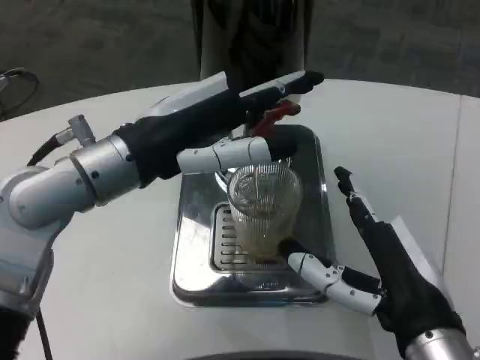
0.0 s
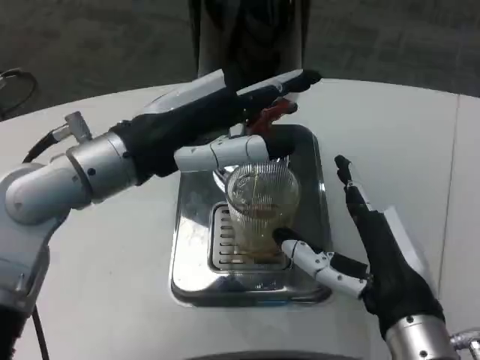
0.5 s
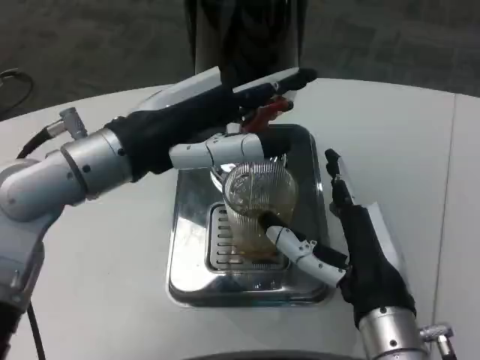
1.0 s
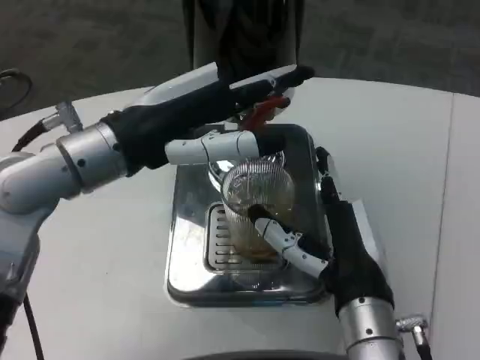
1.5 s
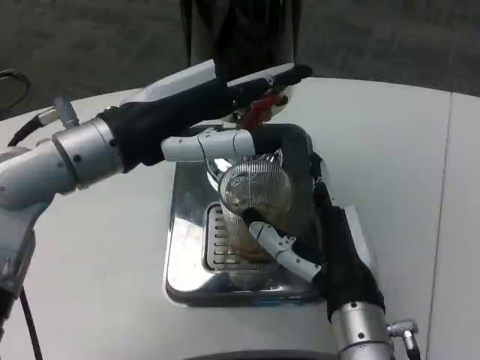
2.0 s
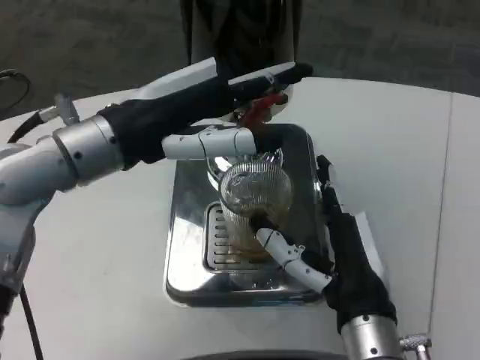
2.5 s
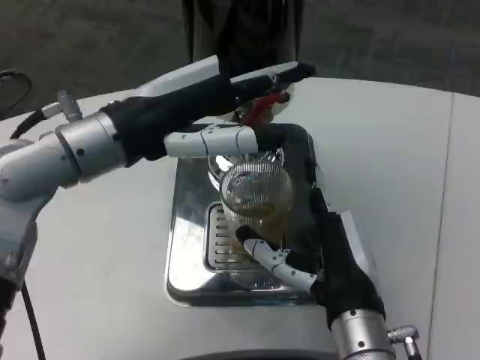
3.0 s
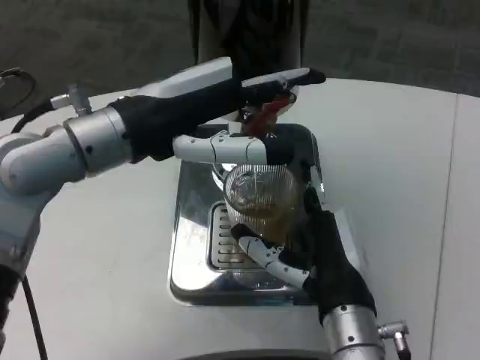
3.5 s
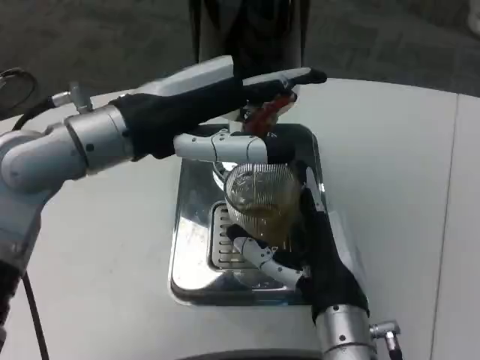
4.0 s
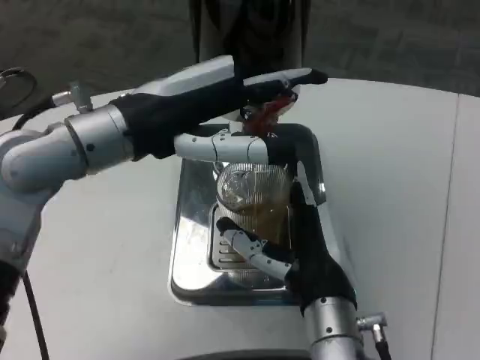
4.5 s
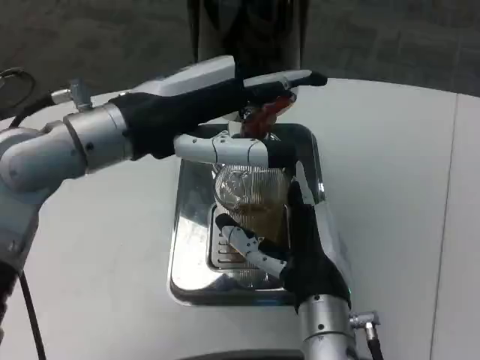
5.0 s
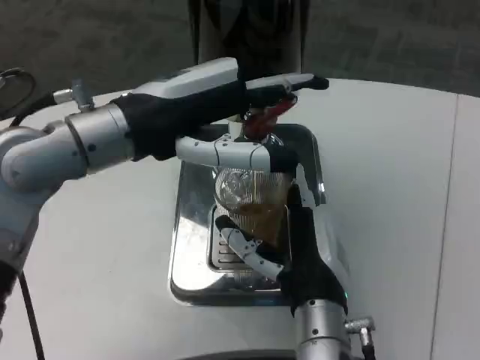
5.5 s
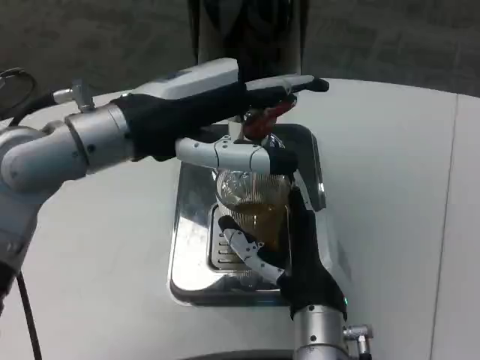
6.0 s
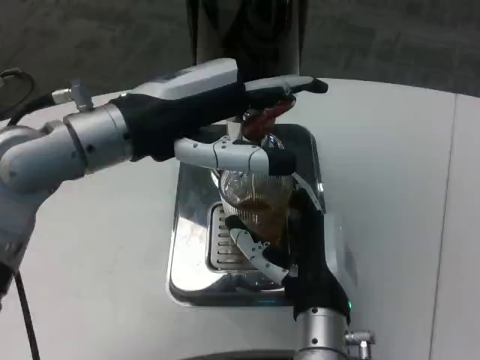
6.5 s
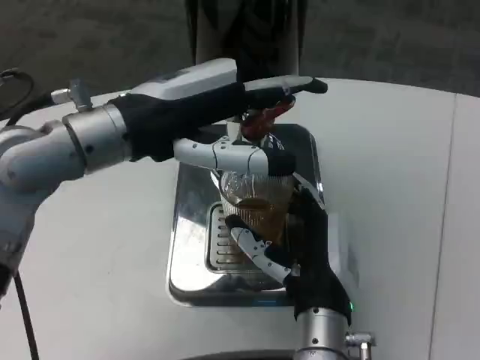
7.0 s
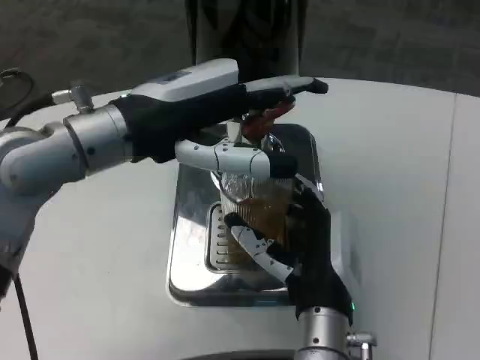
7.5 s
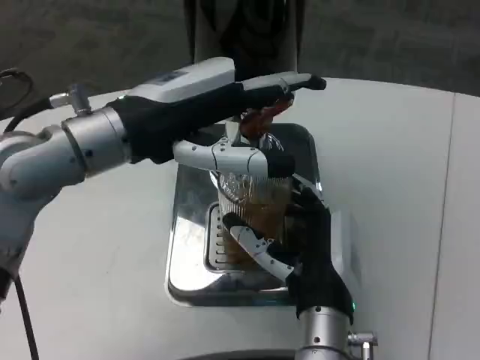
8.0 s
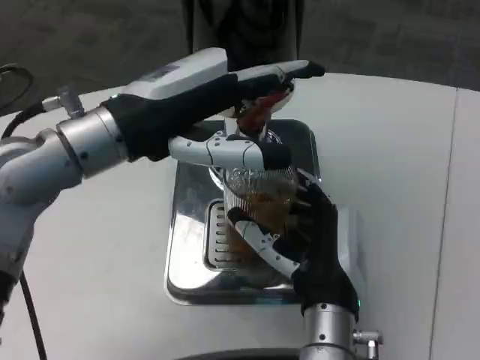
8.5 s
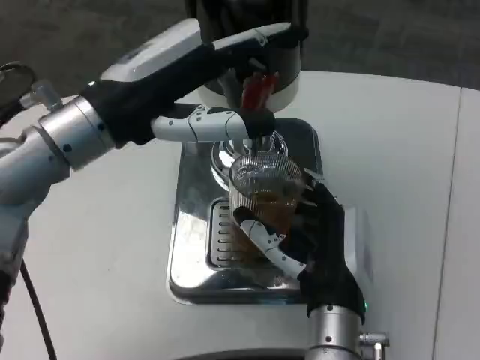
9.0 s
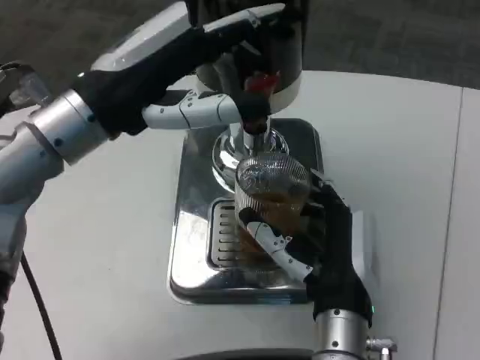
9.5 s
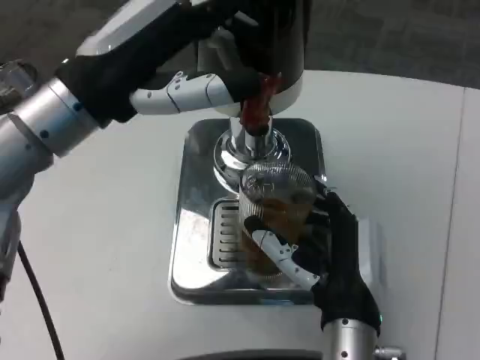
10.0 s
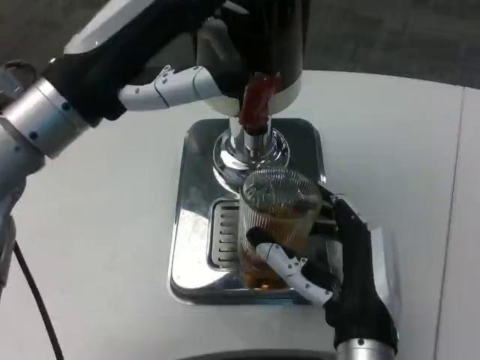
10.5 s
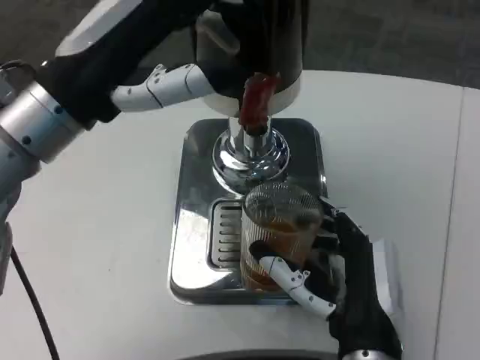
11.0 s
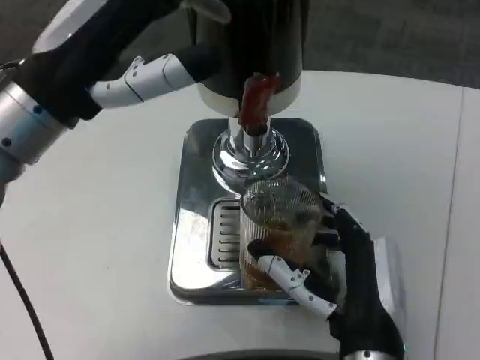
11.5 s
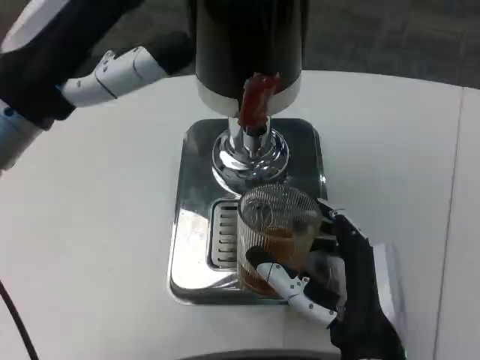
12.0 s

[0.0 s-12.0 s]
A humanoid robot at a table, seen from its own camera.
Task of the whole recording: Grasp the cup under the faucet to collect the drink, then remove the cup.
0.0 to 2.0 s: The right hand heads forward and to the left, covering approximately 10 cm.
4.0 to 8.0 s: The hands stay close to where they were, moving slightly.

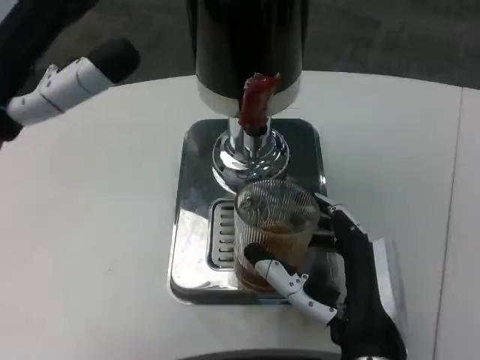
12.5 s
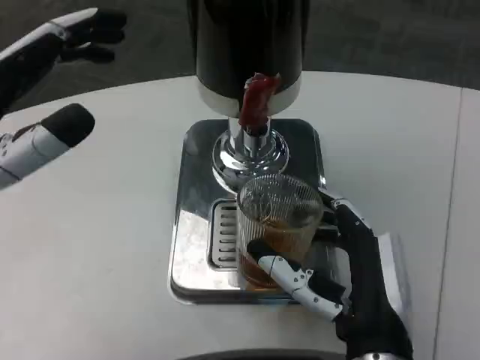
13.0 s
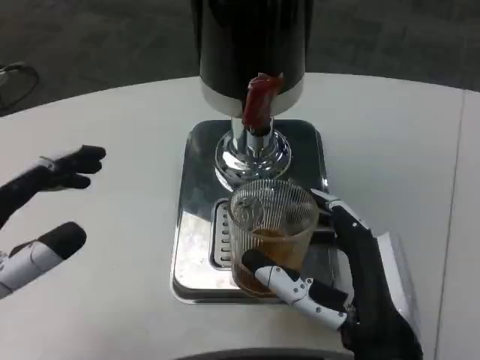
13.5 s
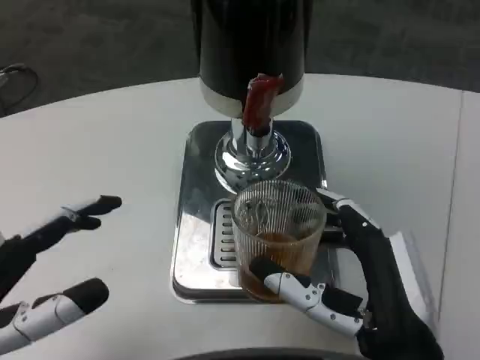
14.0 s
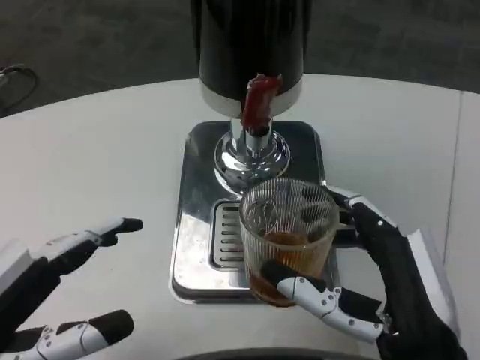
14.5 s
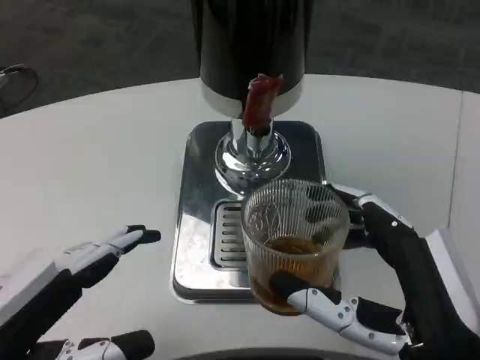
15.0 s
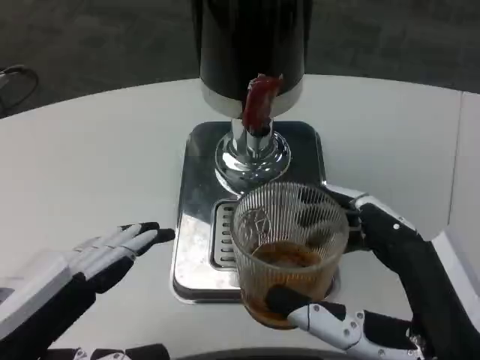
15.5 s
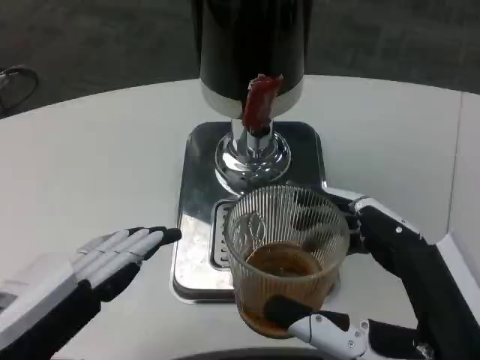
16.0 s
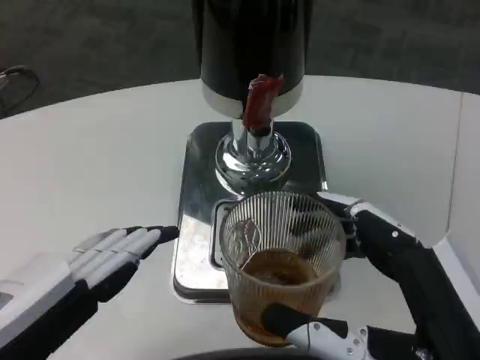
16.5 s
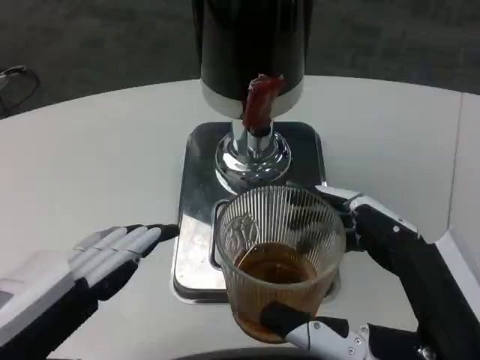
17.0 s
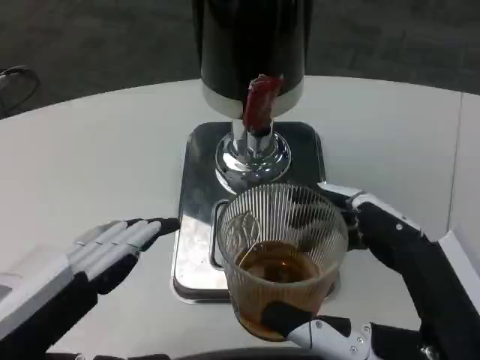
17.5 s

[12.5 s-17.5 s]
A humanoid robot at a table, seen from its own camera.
Task of the whole recording: Grasp the cup under the faucet to collect the drink, then remove the cup.
12.5 to 15.0 s: The left hand shifts some 15 cm downward and backward. Meanwhile the right hand shifts some 10 cm to the right and backward.
15.0 to 17.5 s: The hands move only a little.

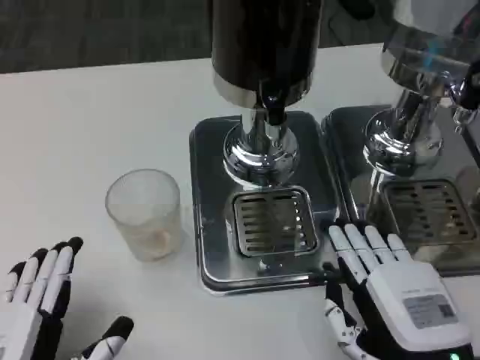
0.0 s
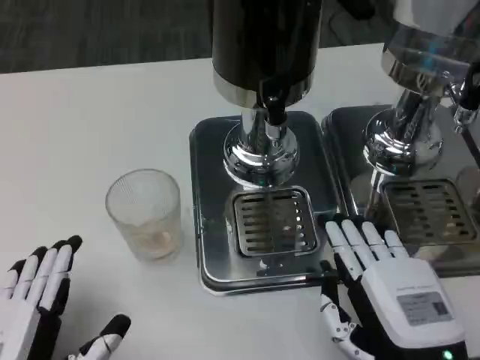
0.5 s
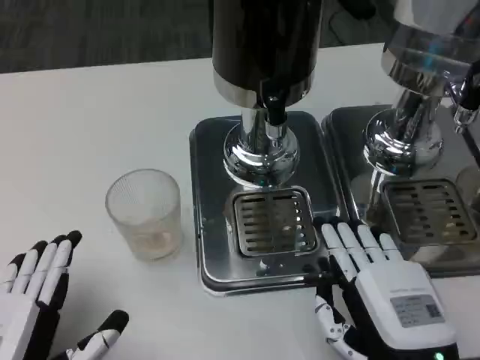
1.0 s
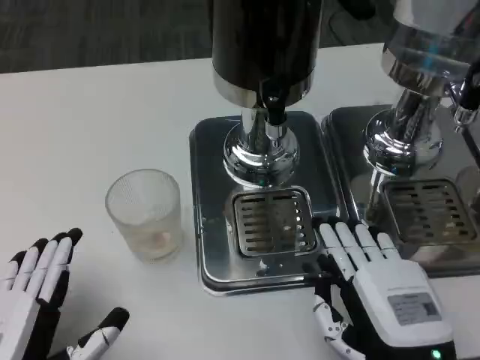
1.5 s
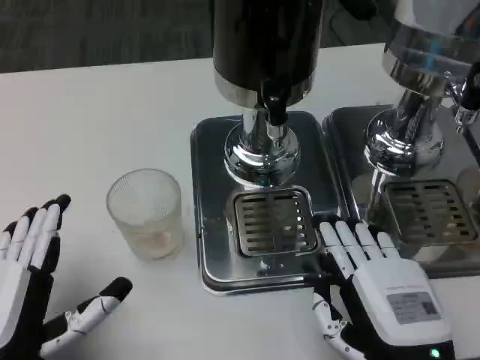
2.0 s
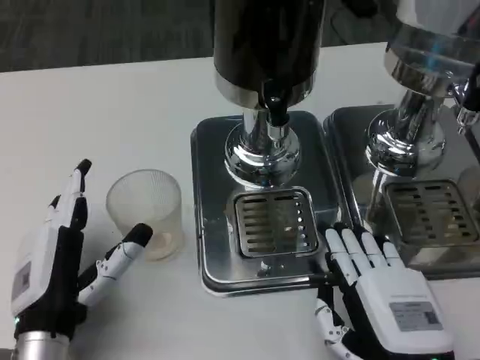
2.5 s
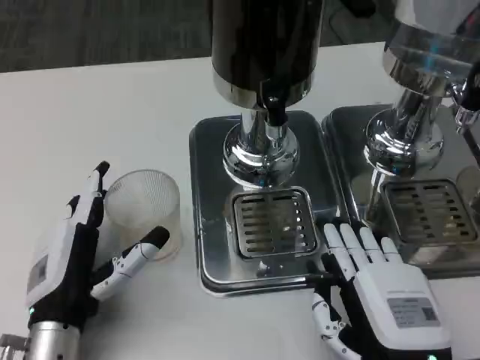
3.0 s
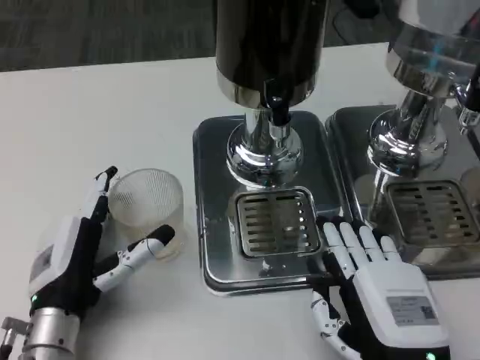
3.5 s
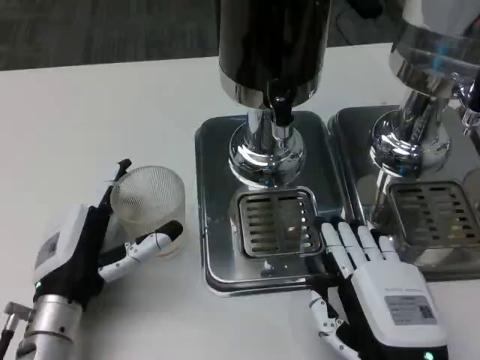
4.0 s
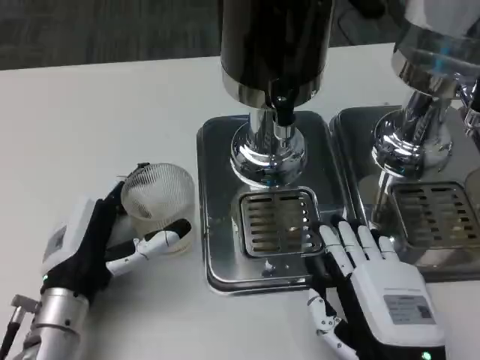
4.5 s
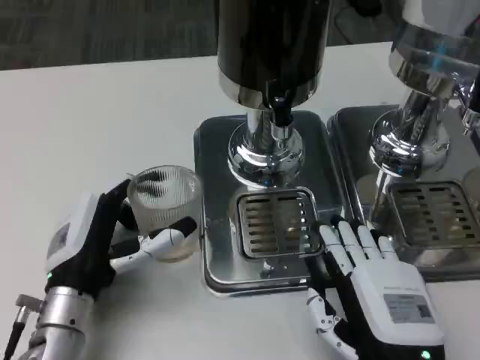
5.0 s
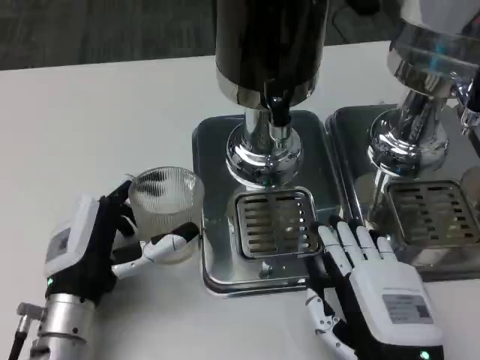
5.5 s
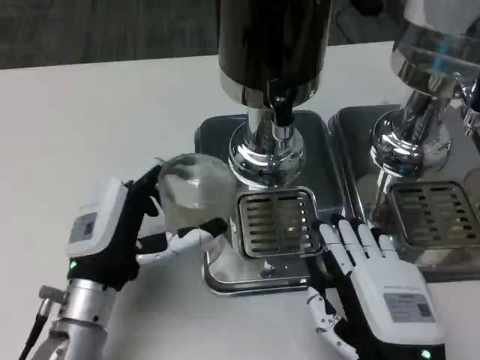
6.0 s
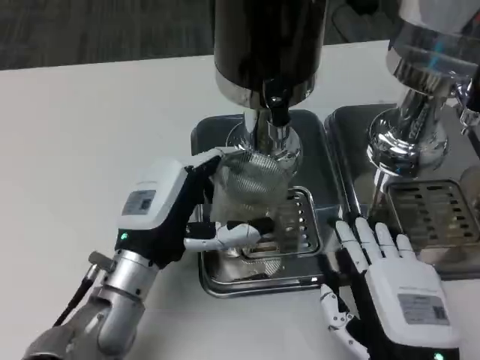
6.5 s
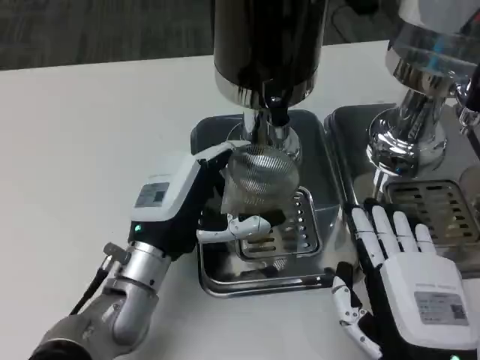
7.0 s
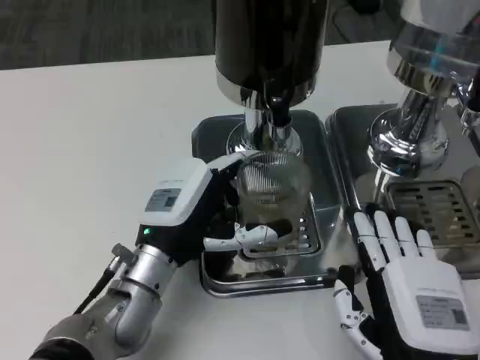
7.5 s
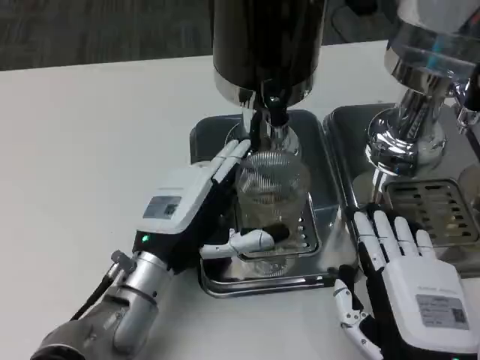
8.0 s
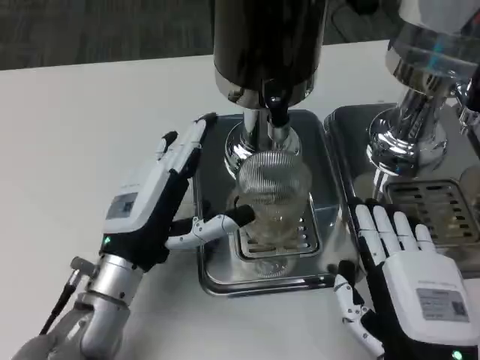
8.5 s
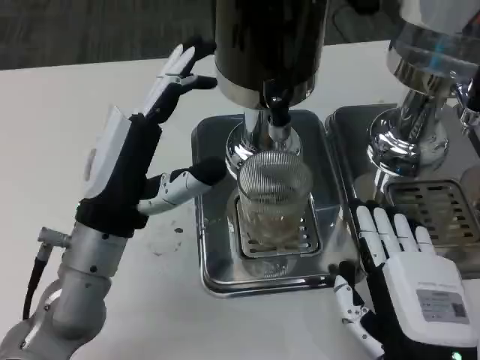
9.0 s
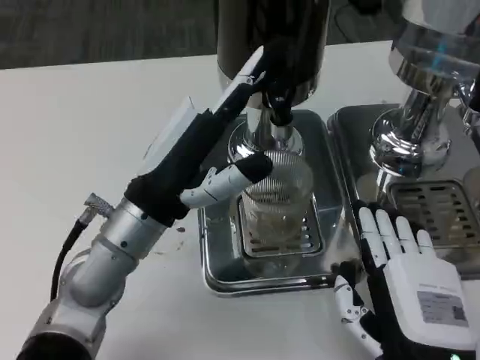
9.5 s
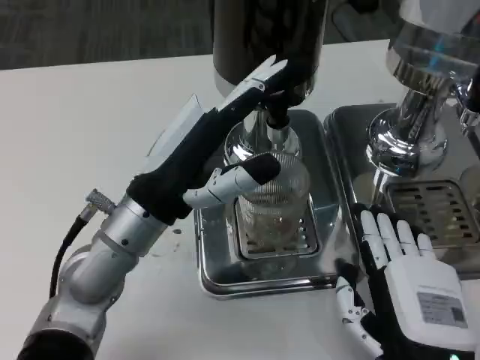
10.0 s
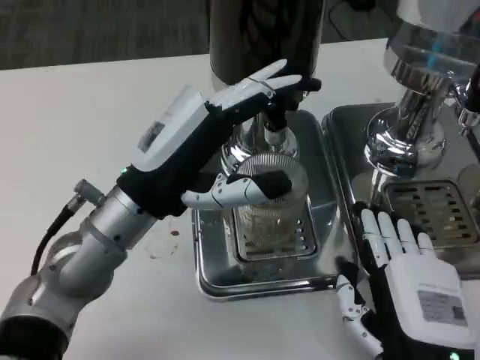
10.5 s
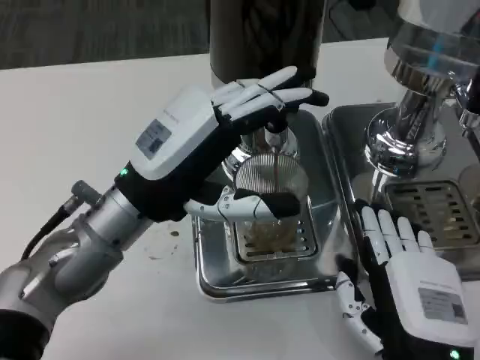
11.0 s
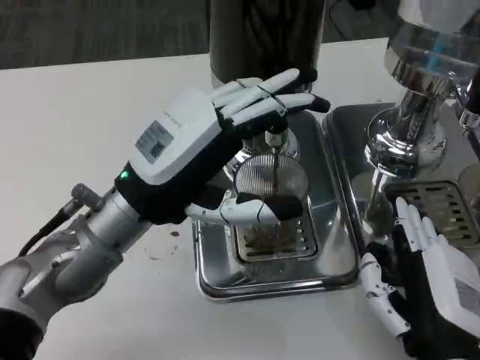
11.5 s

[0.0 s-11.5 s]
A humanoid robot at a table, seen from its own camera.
Task of the whole recording: Grasp the cup under the faucet to collect the drink, then remove the cup.
0.0 to 2.0 s: The hands move only a little.
2.0 to 4.0 s: The left hand heads forward, covering some 10 cm.
6.0 to 7.5 s: The left hand moves some 5 cm.
7.5 to 9.5 s: The left hand goes roughly 5 cm upward.
